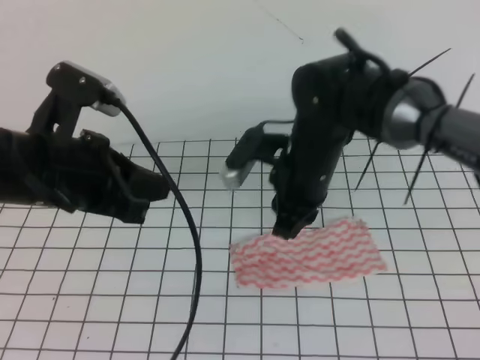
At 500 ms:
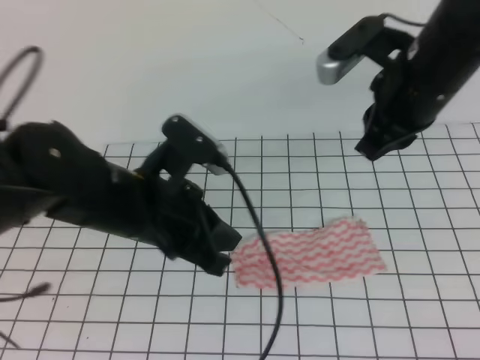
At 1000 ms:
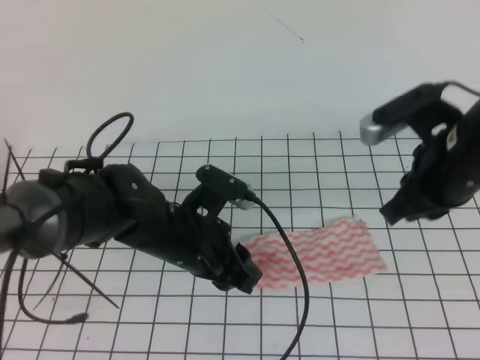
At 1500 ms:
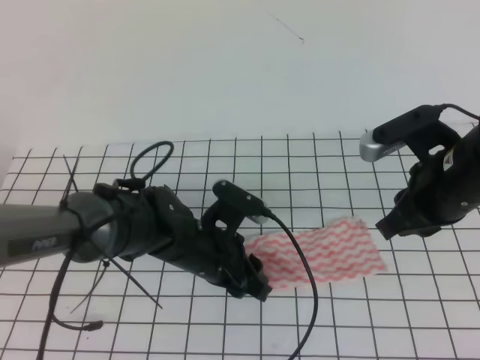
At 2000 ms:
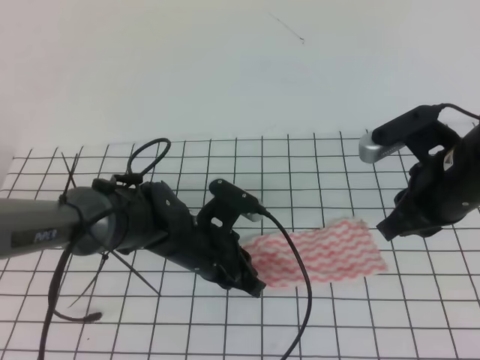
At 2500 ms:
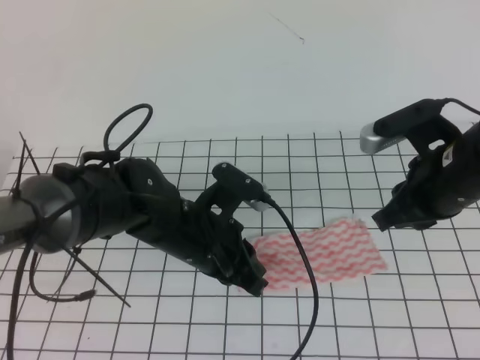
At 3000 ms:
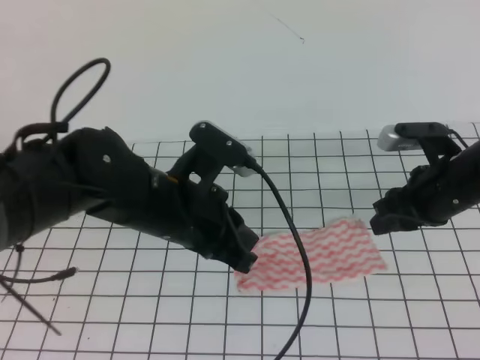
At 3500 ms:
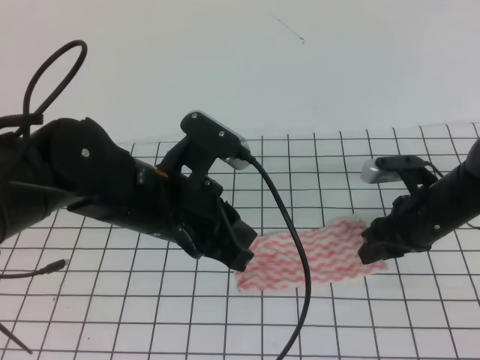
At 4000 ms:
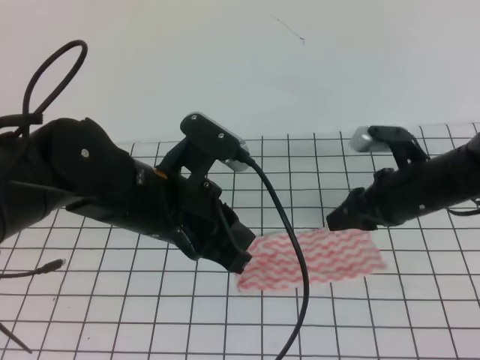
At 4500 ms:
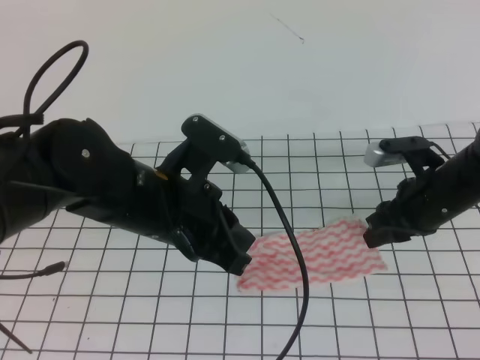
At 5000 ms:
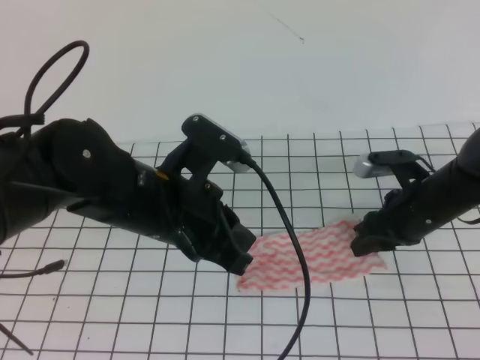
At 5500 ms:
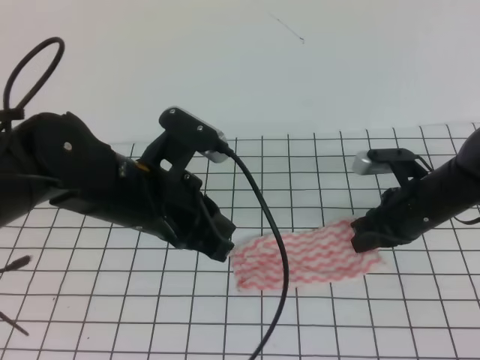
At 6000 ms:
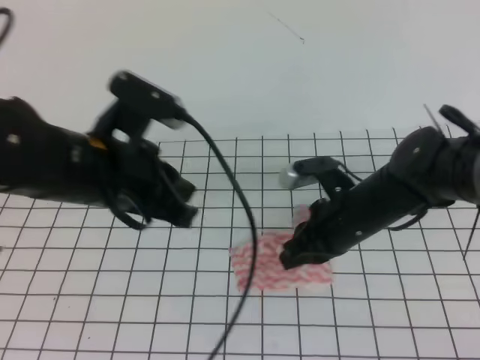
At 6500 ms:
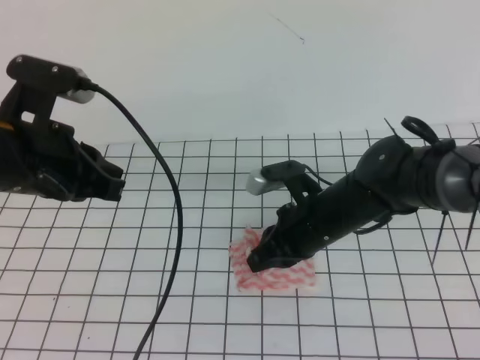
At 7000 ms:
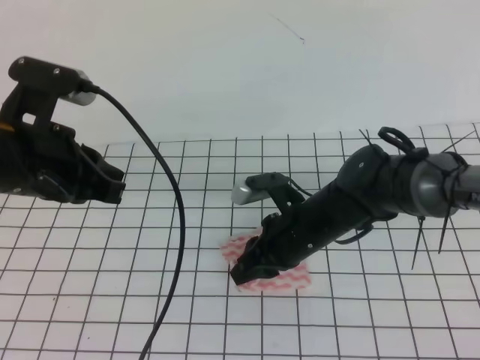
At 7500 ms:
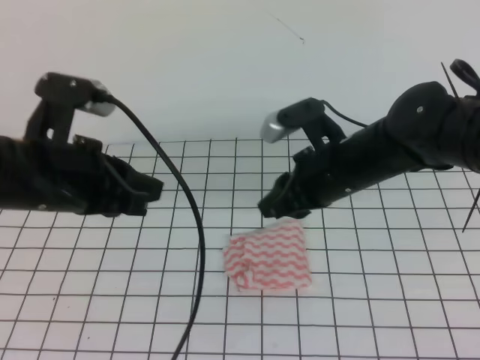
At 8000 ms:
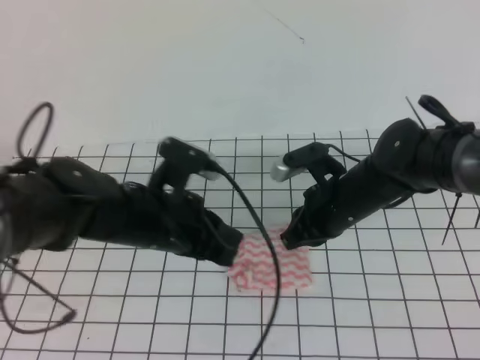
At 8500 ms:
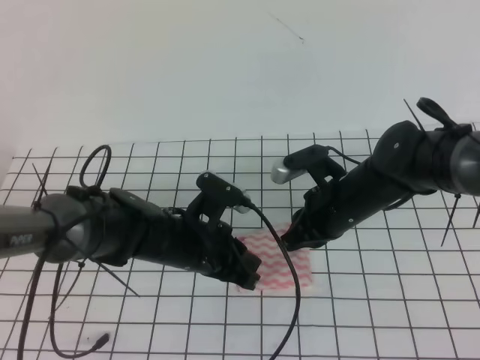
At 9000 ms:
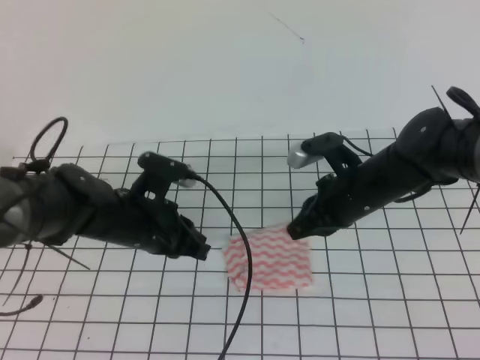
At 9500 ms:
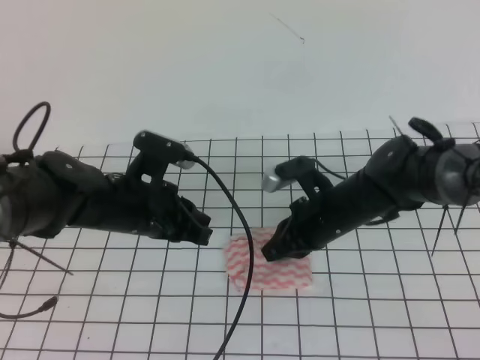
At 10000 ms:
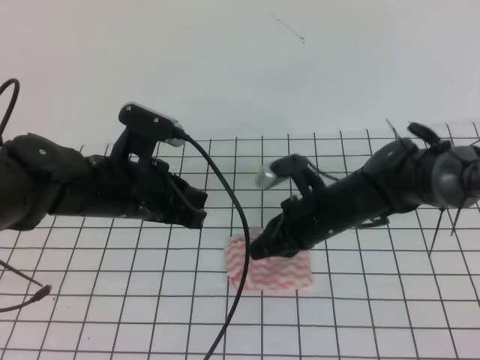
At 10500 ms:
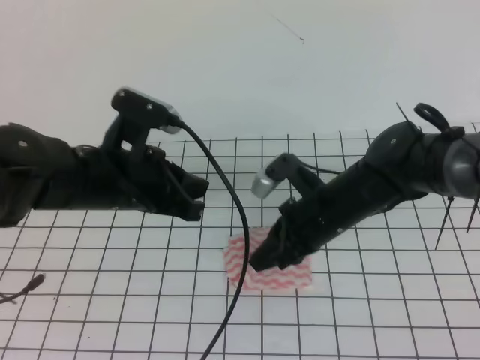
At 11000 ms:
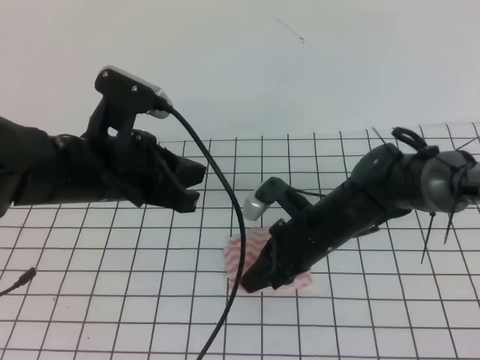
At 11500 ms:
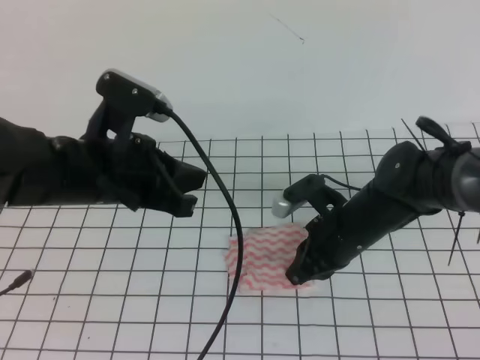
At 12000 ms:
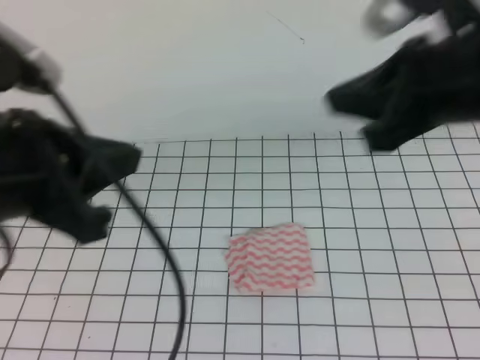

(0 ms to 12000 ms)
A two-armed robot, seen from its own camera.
0 ms - 2000 ms: The left gripper moves downward and to the right, approximately 20 cm, and opens and closes again, while the right gripper goes approximately 15 cm to the right and backward.
2000 ms - 4000 ms: The right gripper heads downward and forward, covering roughly 10 cm, and opens; the left gripper goes roughly 15 cm upward.
4000 ms - 6000 ms: The right gripper goes approximately 5 cm to the left, and closes.
6000 ms - 8000 ms: The left gripper heads downward, covering roughly 10 cm; the right gripper opens, then closes again.
8000 ms - 10000 ms: The left gripper travels downward and back again, about 5 cm each way.
10000 ms - 12000 ms: The grippers both shift upward and backward by approximately 20 cm.

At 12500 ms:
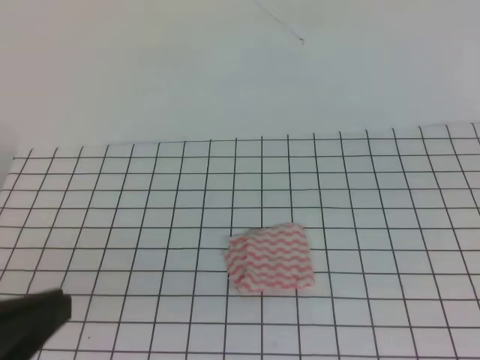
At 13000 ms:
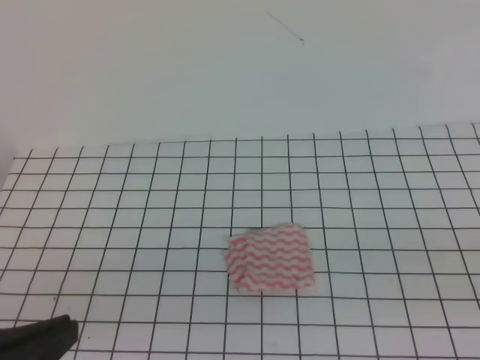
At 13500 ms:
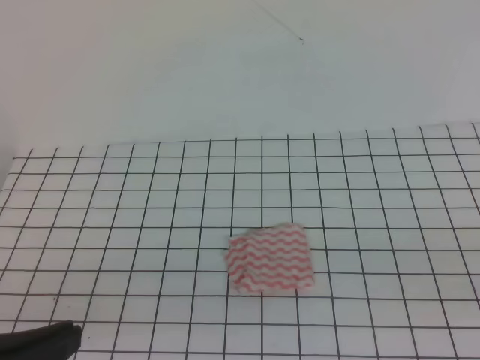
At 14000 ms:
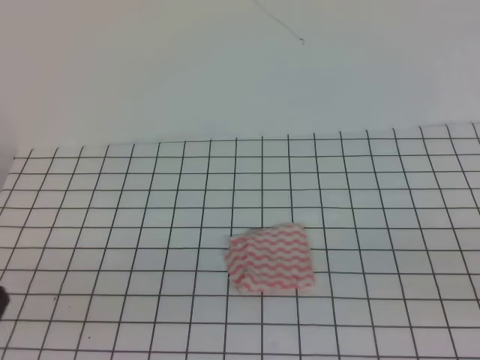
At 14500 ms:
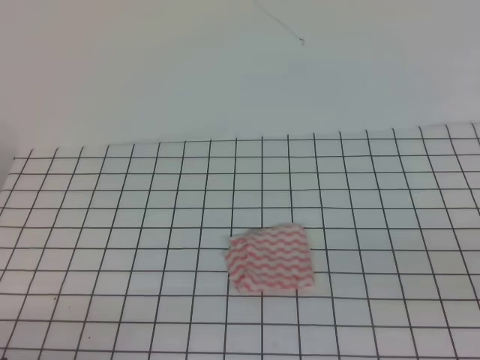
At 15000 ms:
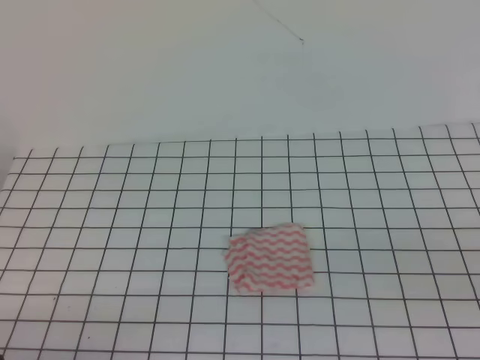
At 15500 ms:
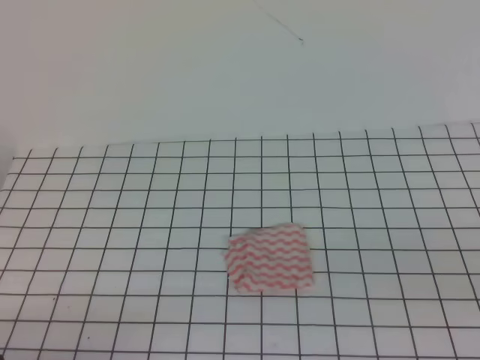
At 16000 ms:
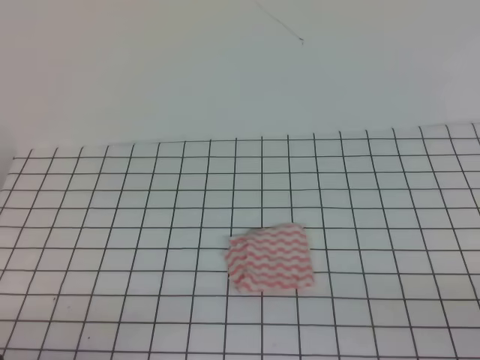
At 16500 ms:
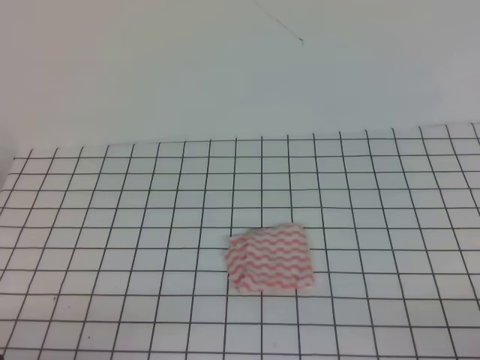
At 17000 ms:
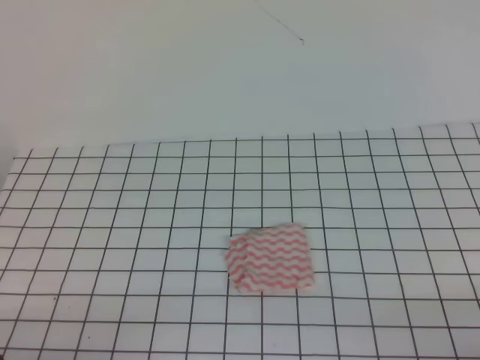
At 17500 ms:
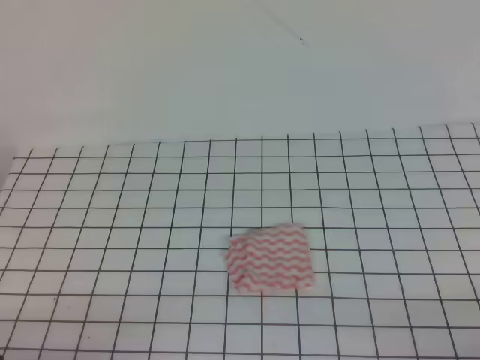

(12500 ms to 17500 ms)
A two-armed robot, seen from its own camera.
12500 ms - 15000 ms: The left gripper goes approximately 15 cm downward.
